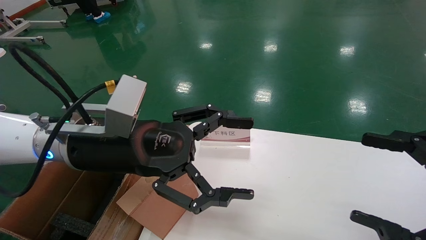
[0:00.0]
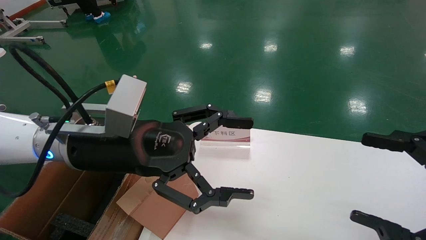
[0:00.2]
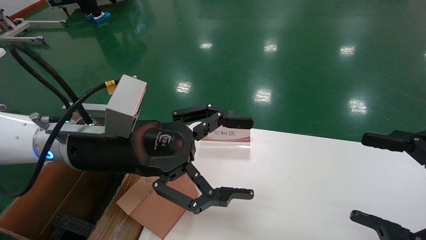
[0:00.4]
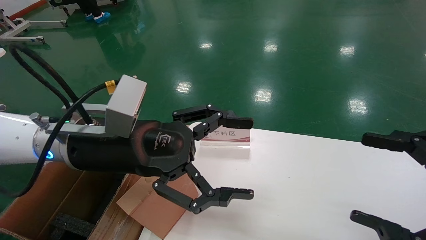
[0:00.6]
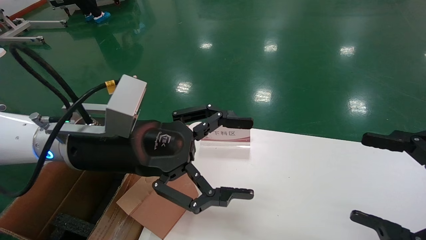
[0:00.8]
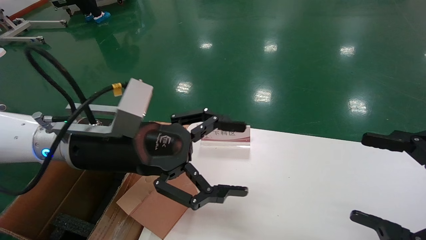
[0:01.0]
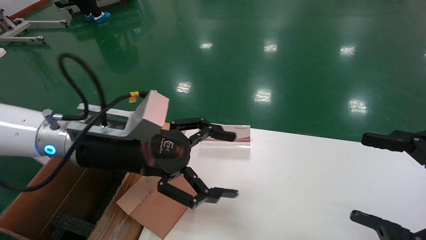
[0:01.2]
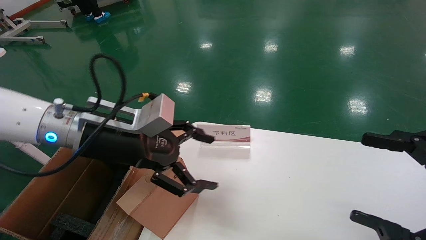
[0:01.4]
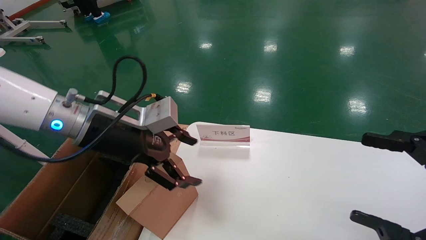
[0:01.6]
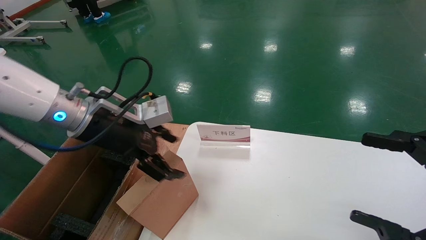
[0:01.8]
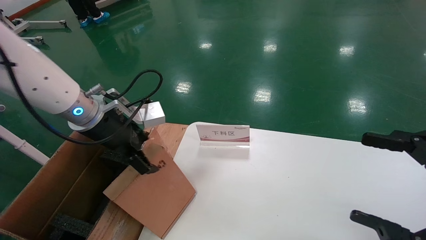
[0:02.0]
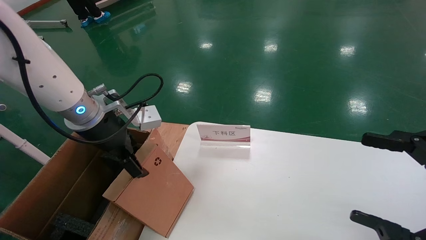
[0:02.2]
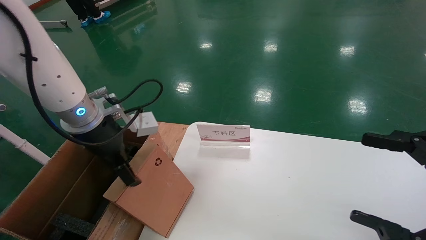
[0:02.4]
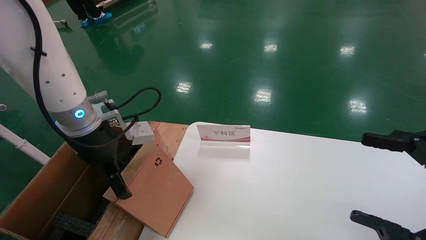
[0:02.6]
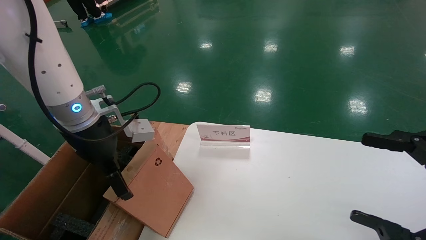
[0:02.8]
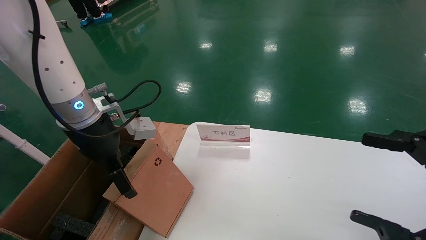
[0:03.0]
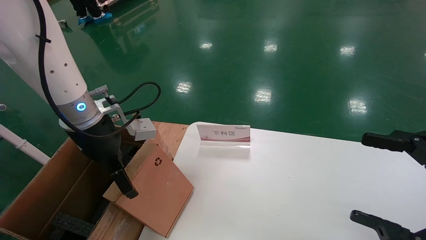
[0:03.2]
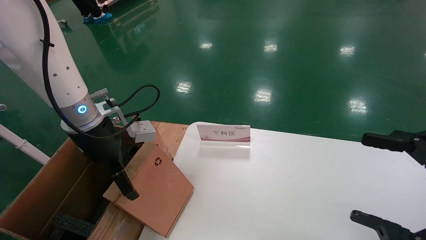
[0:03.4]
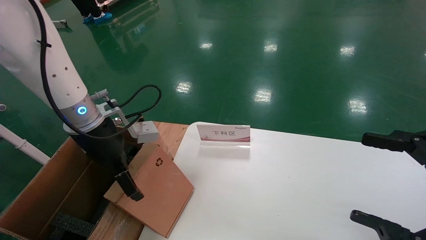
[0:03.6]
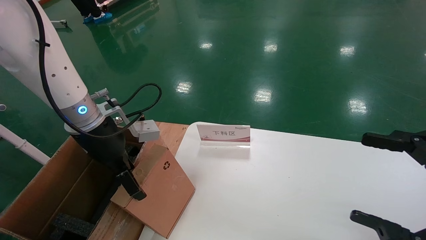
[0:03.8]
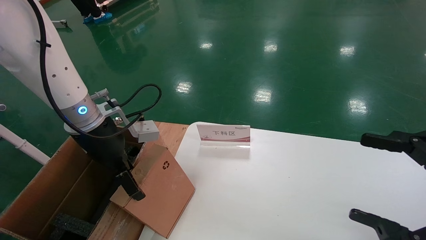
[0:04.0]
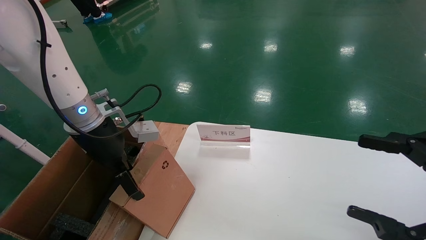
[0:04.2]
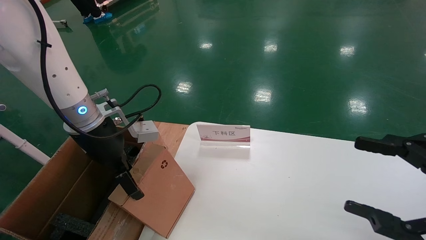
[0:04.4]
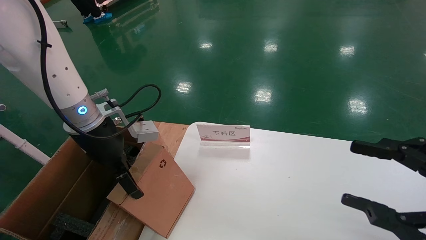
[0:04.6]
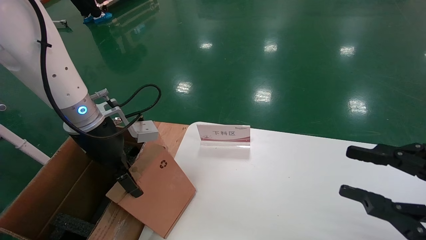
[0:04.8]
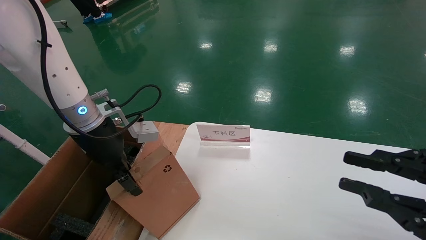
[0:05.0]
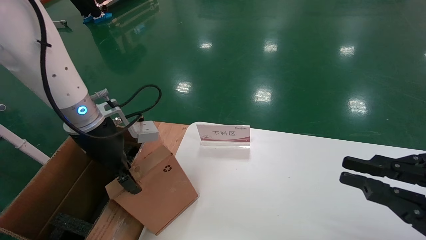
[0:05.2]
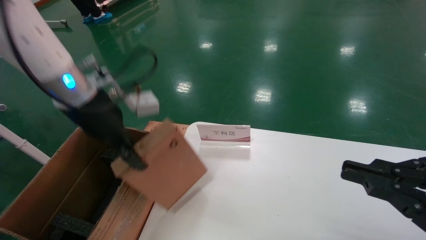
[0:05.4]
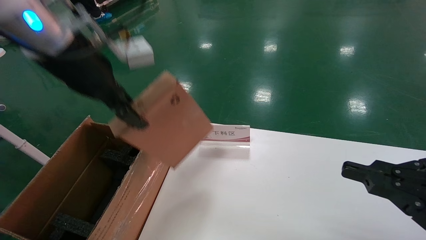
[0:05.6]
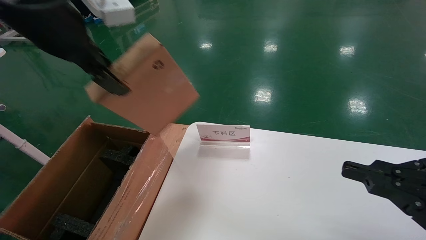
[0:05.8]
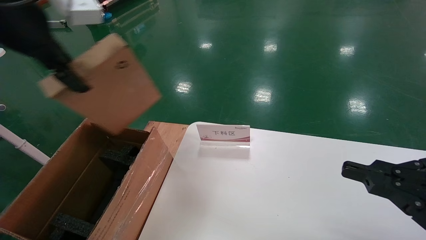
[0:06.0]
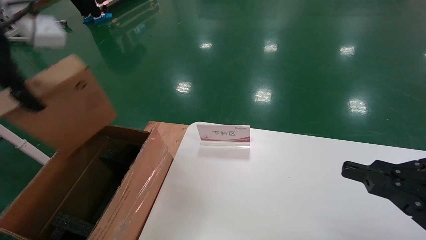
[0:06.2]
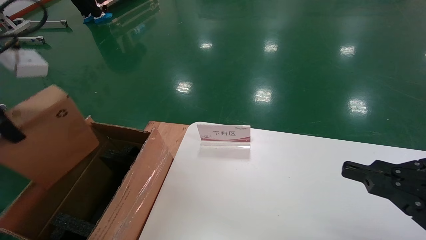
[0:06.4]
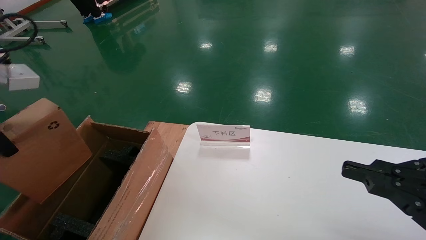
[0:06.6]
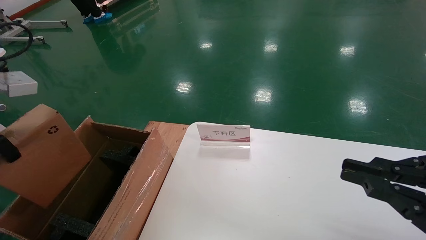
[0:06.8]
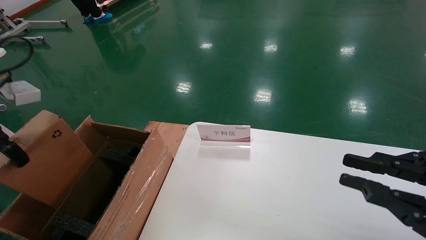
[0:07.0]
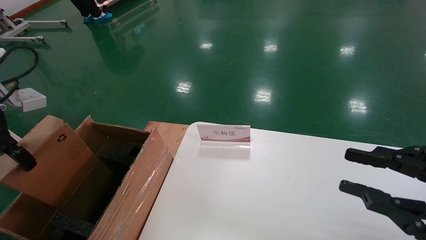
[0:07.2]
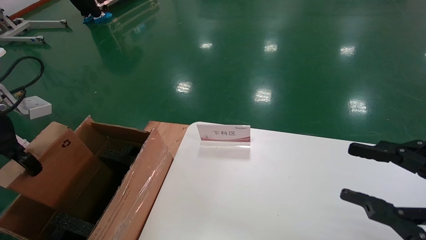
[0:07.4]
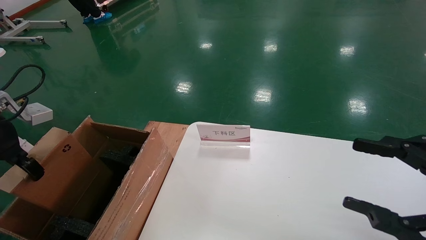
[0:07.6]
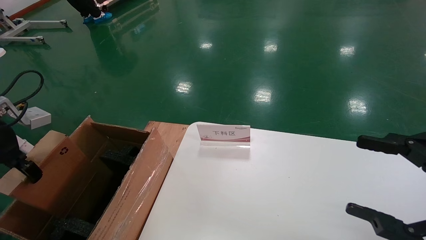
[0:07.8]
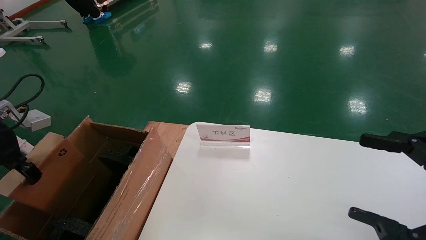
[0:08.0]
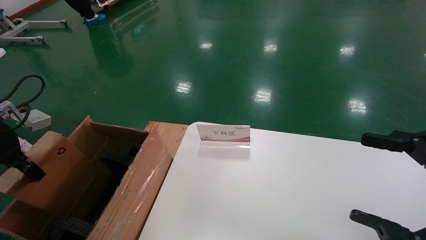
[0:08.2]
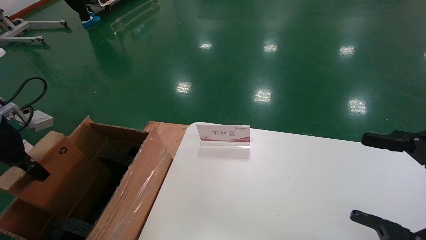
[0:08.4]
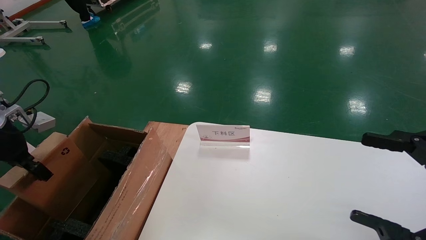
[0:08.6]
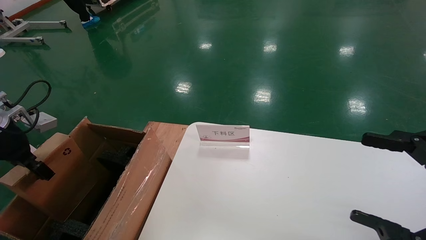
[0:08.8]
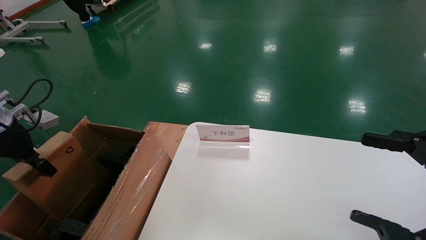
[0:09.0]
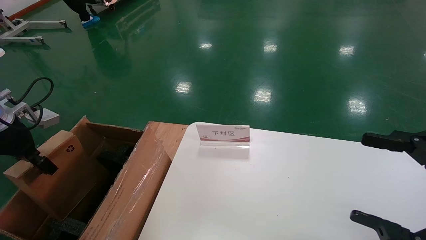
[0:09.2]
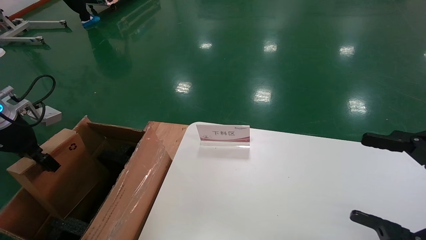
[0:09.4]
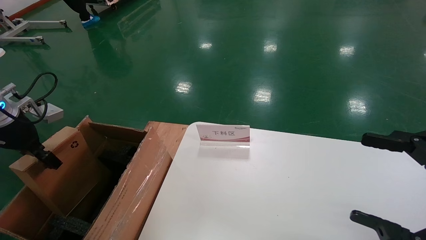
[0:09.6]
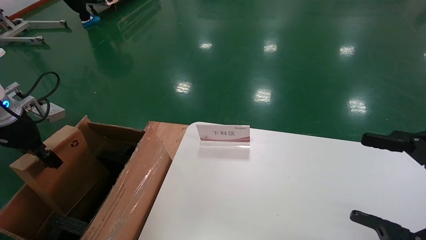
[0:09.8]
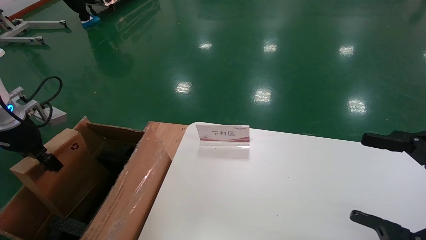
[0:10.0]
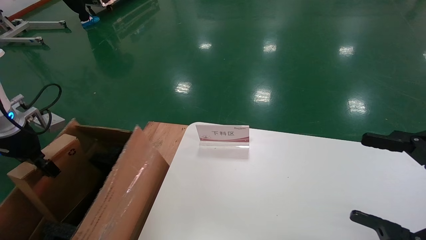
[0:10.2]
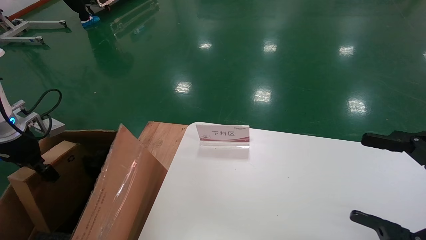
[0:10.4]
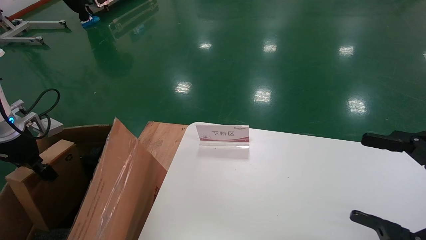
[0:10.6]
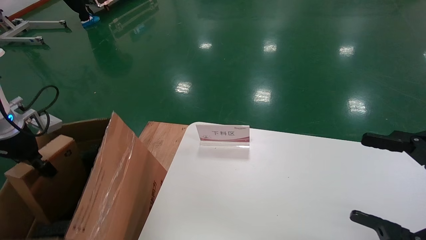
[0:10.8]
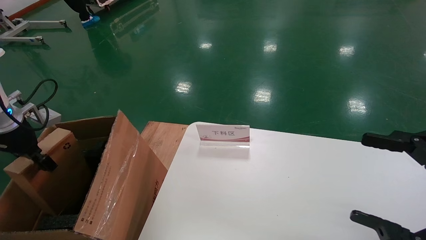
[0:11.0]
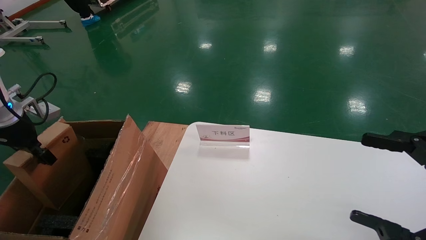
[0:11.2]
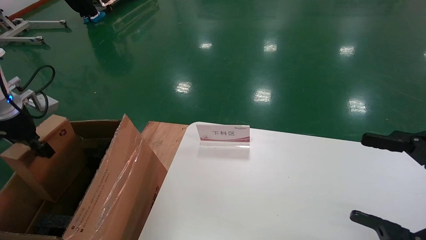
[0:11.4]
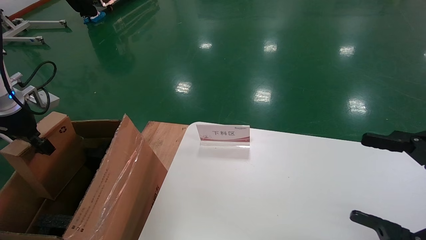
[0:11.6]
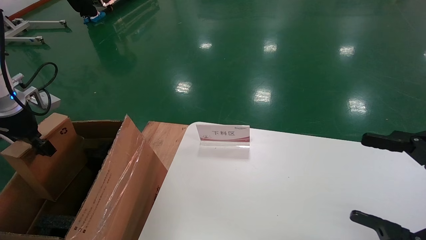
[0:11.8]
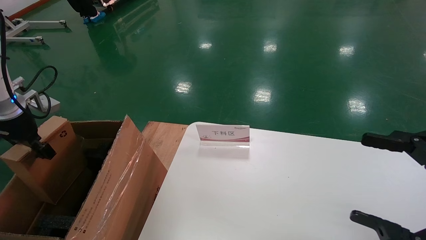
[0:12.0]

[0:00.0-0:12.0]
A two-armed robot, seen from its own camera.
Task of the whole recording: pick up the small cardboard box and load it into the large cardboard box.
Step, 0:01.2 to 0:05.4: Pick up the mouse and power cord box.
0:00.0 to 0:01.6: The left gripper goes roughly 5 cm forward.
0:03.0 to 0:04.4: The grippers move only a little.
0:04.4 to 0:06.0: The left gripper is displaced upward and backward by approximately 20 cm, and closes its fingers; the right gripper closes.
0:06.0 to 0:07.6: The right gripper opens its fingers; the left gripper moves downward and to the left, approximately 20 cm.
0:07.6 to 0:09.0: The left gripper shifts about 5 cm downward. The right gripper opens up.
0:09.0 to 0:12.0: The grippers move only a little.

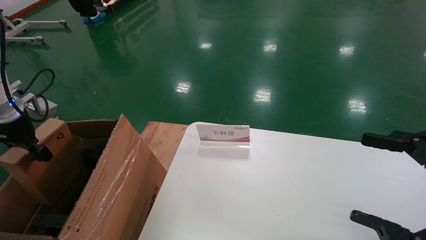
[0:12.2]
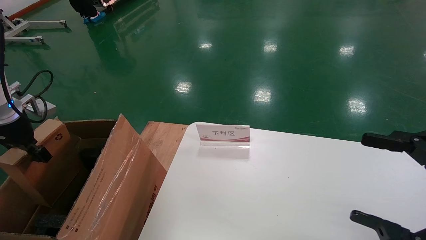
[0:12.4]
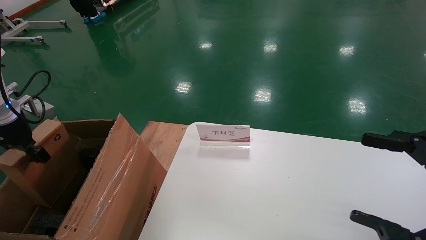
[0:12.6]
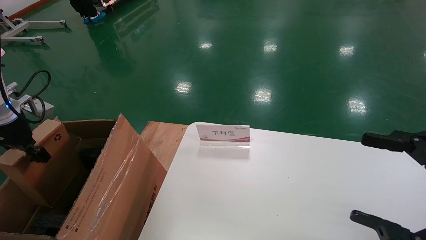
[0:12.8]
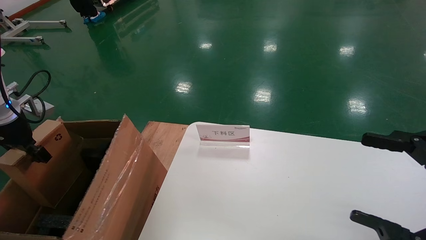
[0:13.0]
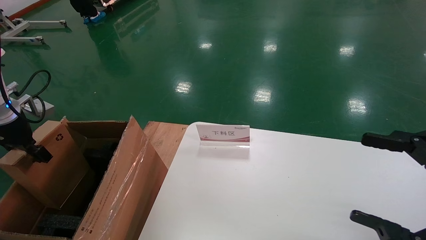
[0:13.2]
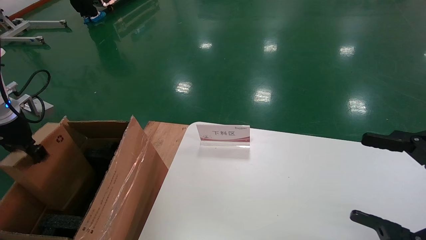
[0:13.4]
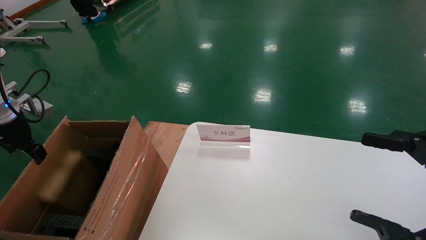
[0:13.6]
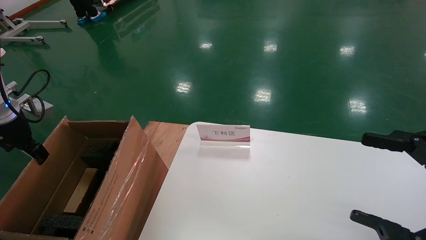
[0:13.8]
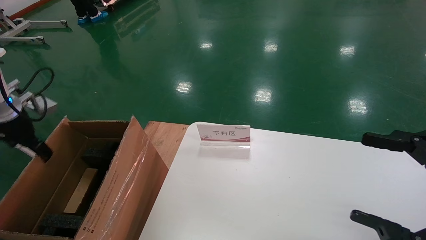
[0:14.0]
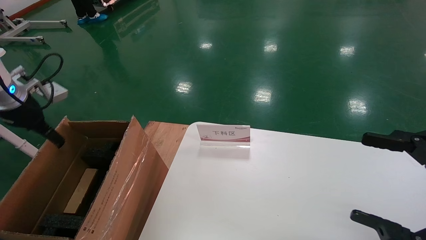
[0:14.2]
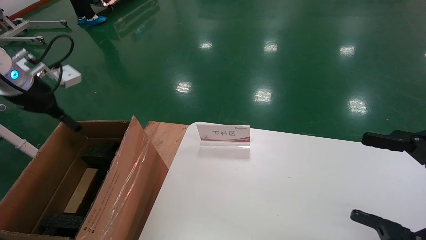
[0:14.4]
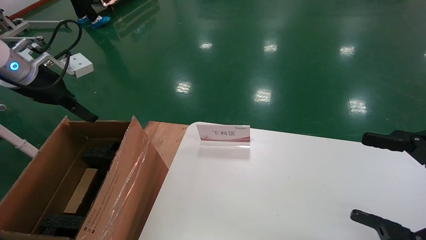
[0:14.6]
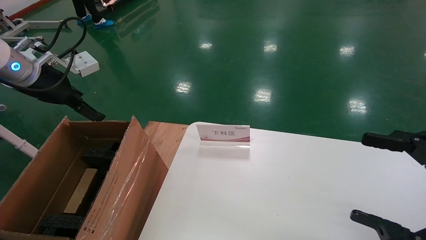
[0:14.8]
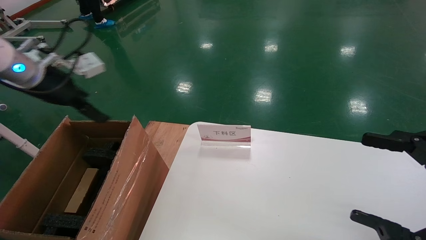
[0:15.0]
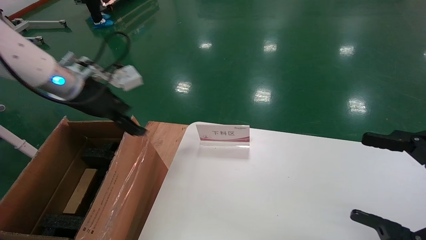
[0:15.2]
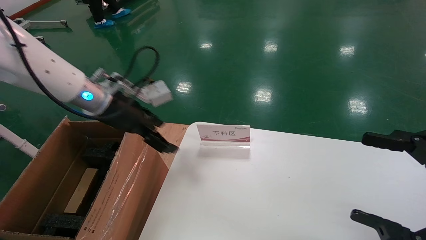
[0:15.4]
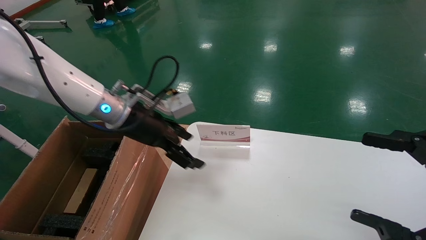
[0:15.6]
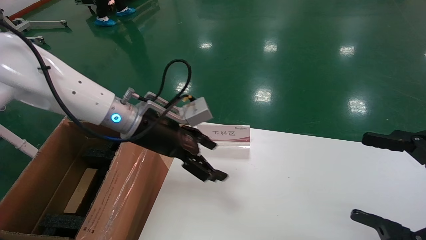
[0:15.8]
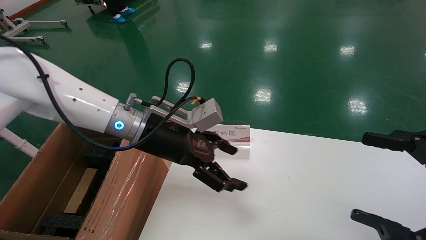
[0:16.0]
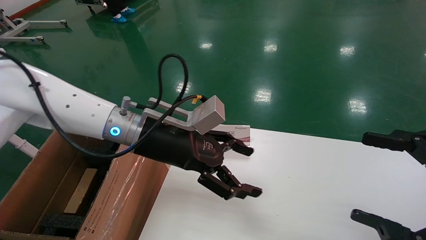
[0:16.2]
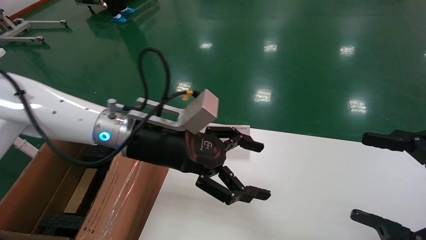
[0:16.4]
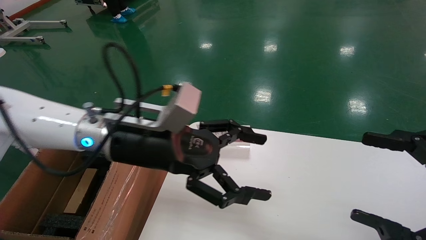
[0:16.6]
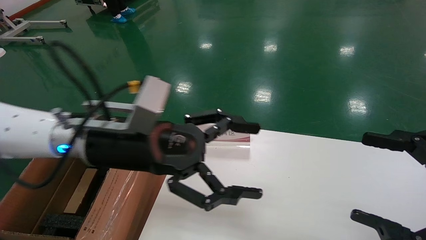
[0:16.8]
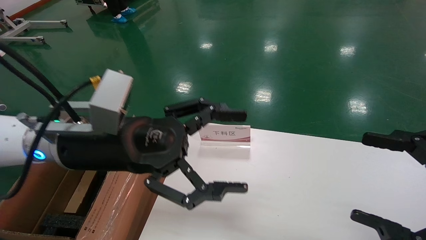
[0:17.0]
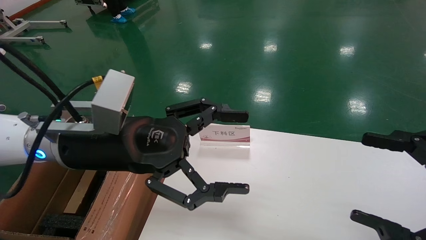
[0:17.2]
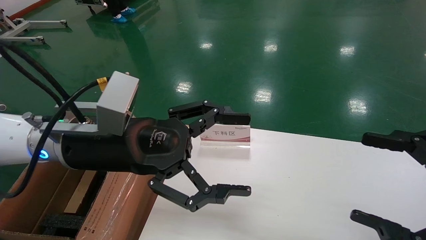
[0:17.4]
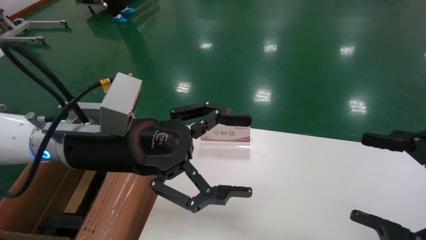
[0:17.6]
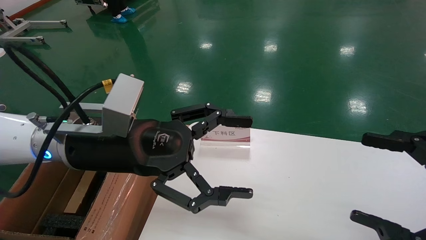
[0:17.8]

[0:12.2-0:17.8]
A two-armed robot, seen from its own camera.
Task of the whole recording: pick up the small cardboard box and load it into the large cardboard box.
0:12.2 to 0:13.6: The left gripper opens.
0:13.6 to 0:15.0: The left gripper moves to the right and upward, about 15 cm, and opens its fingers.
0:15.0 to 0:16.4: The left gripper goes some 20 cm to the right.
0:16.4 to 0:17.8: The left gripper goes roughly 5 cm backward.
